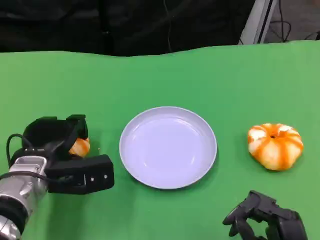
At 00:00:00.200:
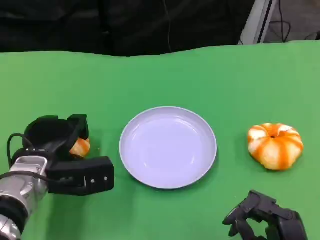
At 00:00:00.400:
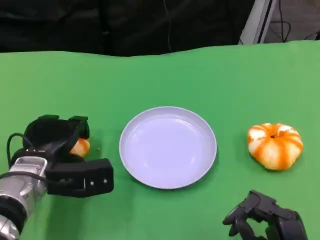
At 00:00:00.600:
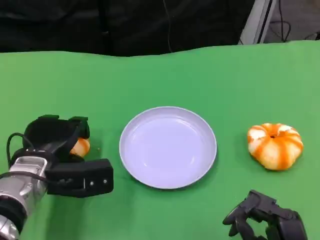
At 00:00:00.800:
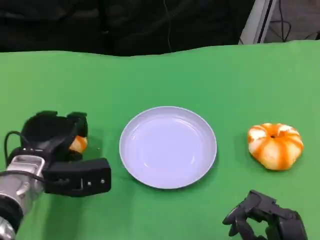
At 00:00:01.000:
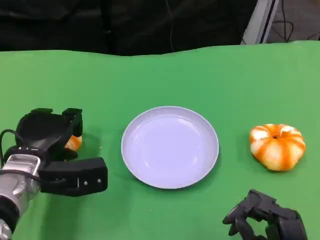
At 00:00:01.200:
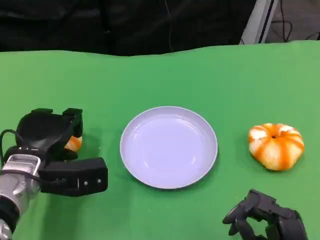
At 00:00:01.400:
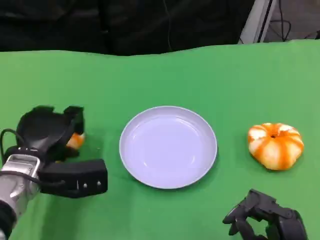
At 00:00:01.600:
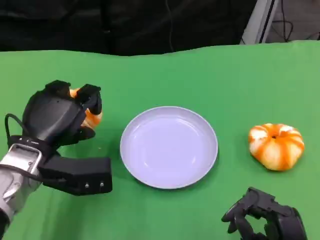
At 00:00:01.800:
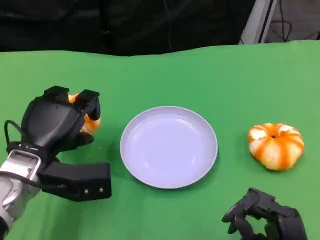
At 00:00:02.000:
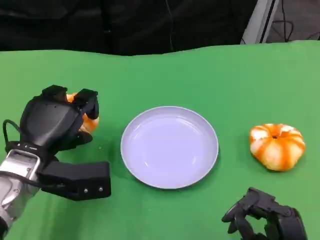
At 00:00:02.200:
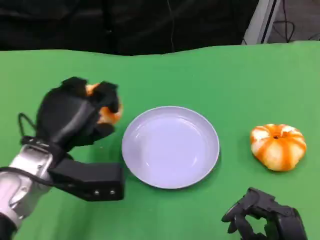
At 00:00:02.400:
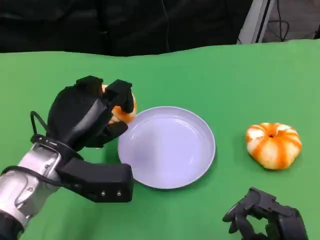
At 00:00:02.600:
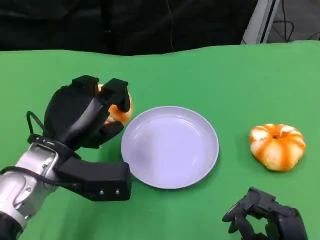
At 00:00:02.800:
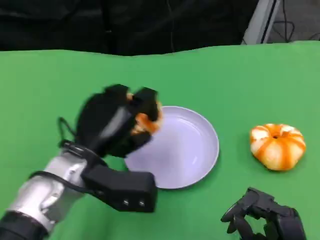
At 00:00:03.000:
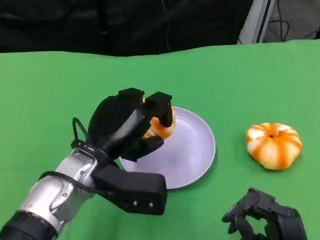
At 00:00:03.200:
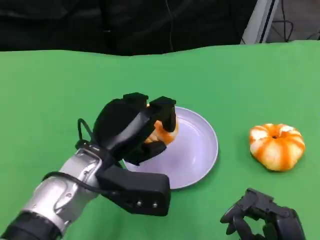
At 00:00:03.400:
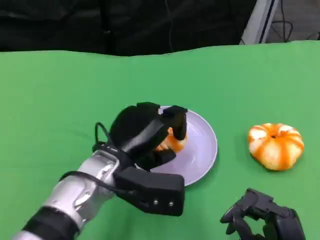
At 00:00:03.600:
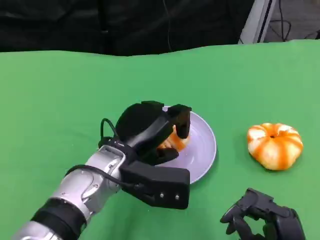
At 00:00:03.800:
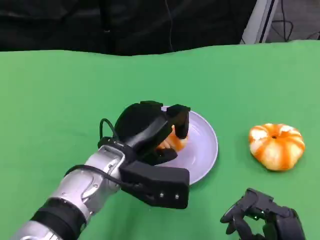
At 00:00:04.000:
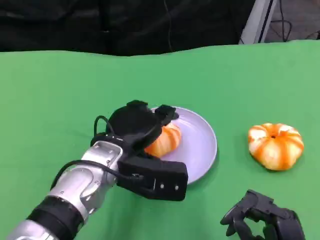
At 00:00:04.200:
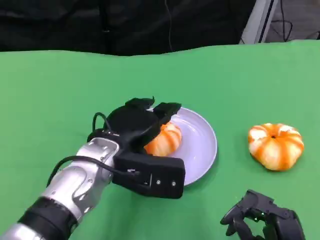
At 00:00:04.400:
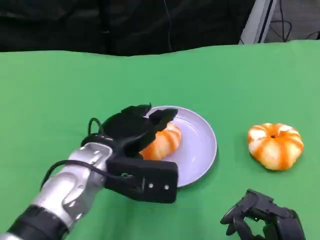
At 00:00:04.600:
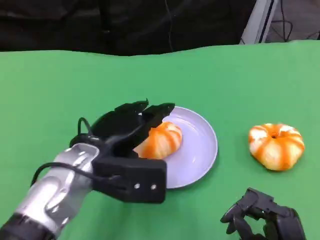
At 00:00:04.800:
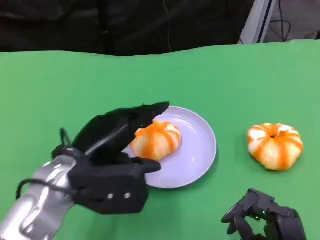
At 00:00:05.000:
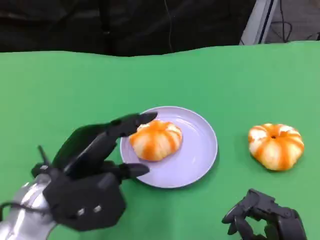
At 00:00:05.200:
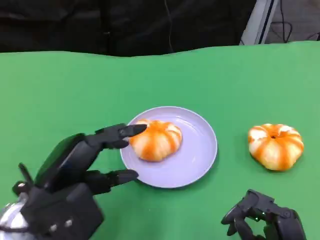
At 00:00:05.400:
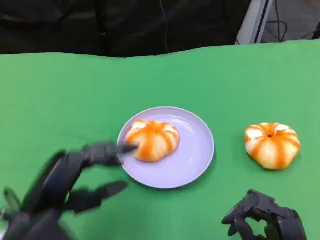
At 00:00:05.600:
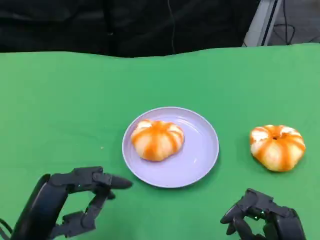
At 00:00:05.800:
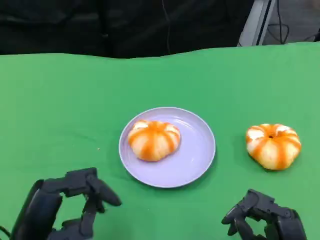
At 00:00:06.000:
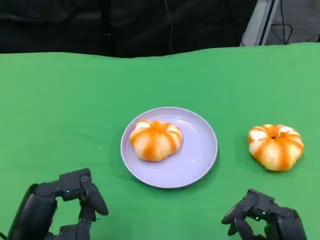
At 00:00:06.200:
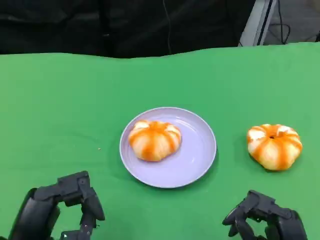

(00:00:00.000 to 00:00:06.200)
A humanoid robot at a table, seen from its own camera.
Task of the whole recording: Grasp the bread from the table and place it into the plate.
00:00:01.600 - 00:00:03.200: The left hand heads to the right, covering roughly 10 cm.
00:00:04.600 - 00:00:06.200: The left hand is displaced backward and to the left by about 15 cm.

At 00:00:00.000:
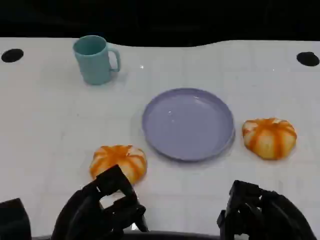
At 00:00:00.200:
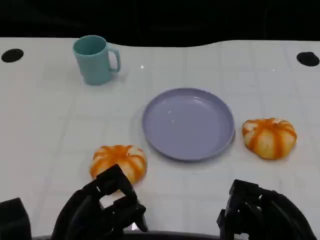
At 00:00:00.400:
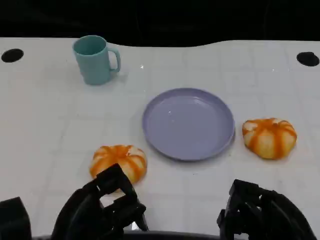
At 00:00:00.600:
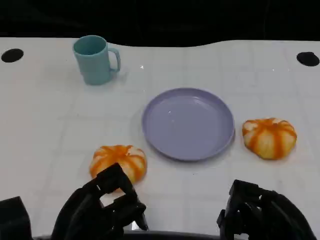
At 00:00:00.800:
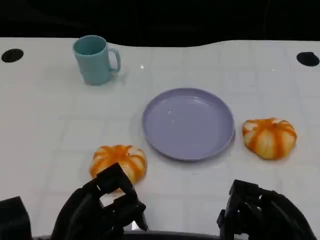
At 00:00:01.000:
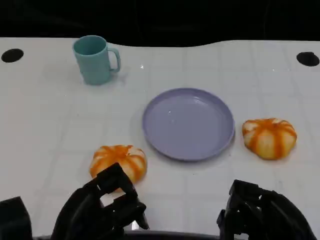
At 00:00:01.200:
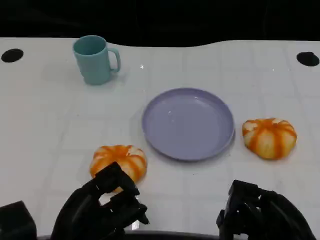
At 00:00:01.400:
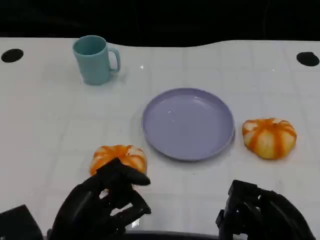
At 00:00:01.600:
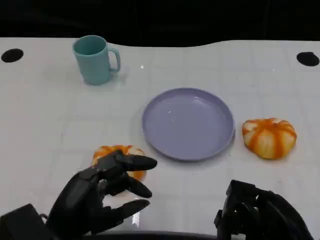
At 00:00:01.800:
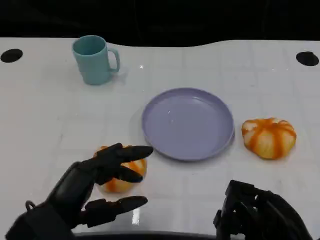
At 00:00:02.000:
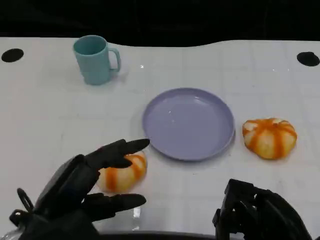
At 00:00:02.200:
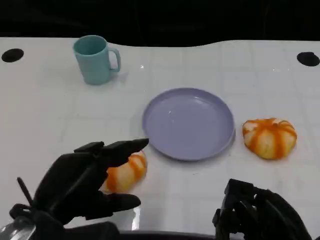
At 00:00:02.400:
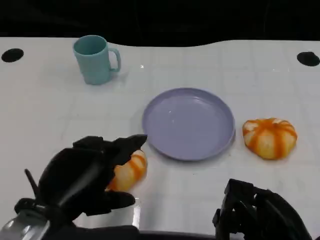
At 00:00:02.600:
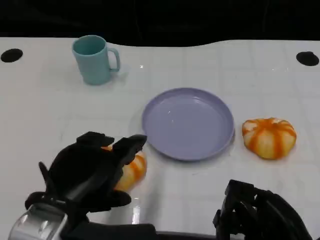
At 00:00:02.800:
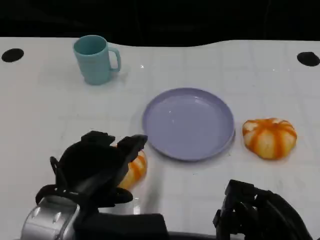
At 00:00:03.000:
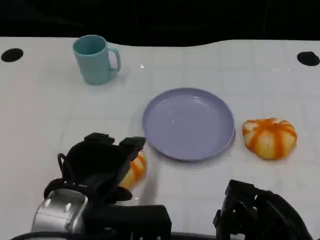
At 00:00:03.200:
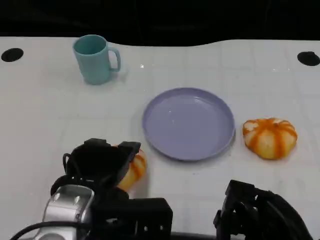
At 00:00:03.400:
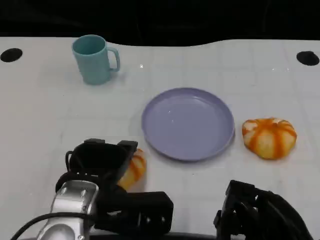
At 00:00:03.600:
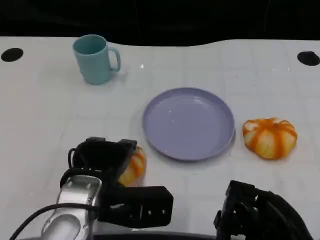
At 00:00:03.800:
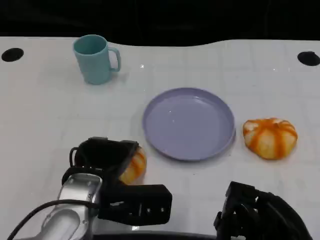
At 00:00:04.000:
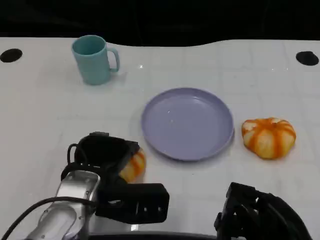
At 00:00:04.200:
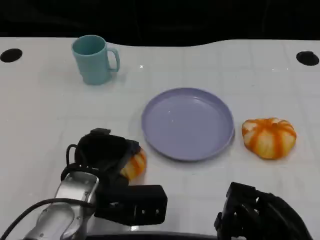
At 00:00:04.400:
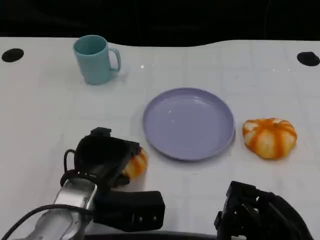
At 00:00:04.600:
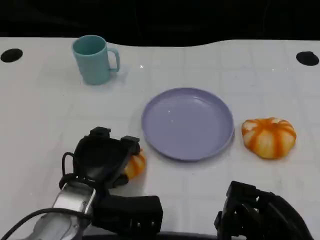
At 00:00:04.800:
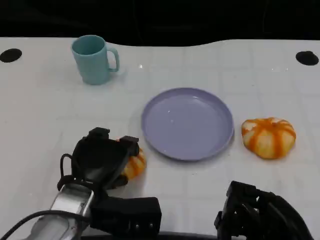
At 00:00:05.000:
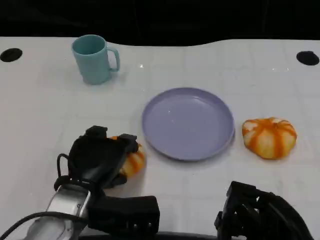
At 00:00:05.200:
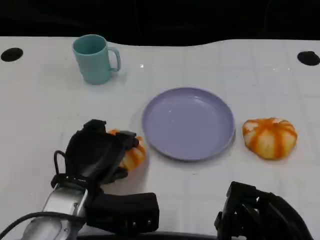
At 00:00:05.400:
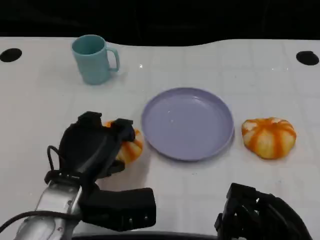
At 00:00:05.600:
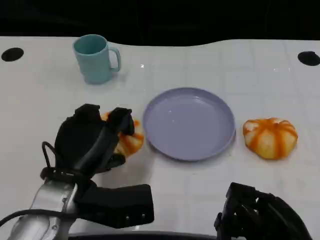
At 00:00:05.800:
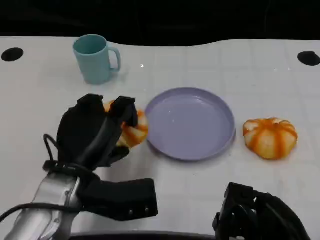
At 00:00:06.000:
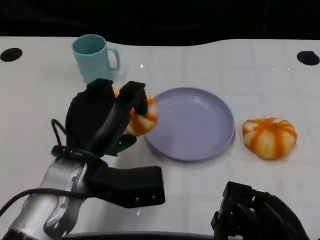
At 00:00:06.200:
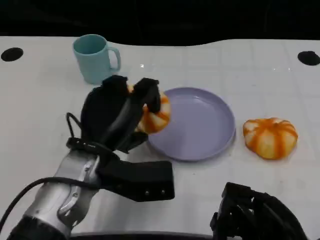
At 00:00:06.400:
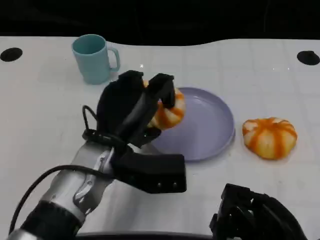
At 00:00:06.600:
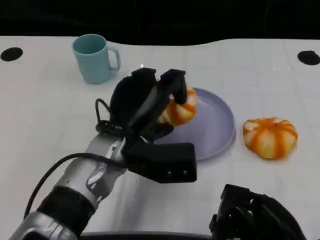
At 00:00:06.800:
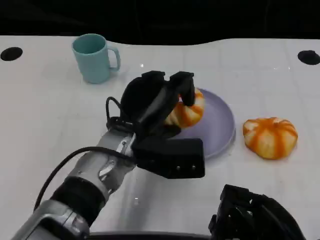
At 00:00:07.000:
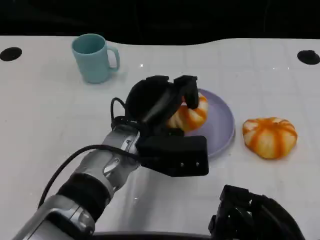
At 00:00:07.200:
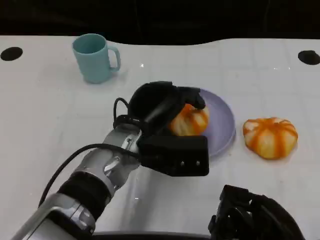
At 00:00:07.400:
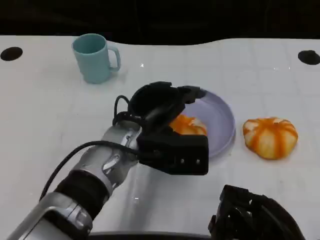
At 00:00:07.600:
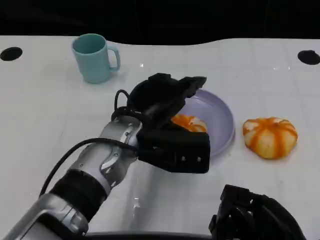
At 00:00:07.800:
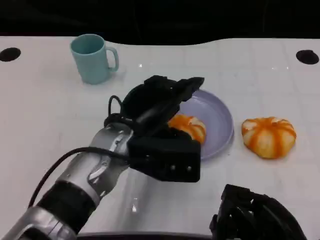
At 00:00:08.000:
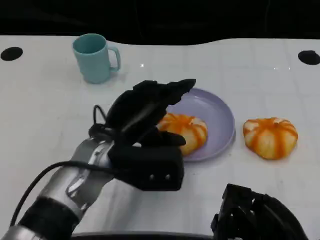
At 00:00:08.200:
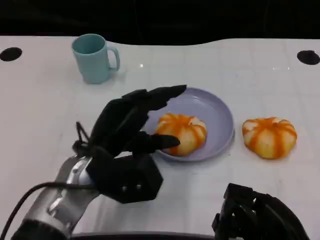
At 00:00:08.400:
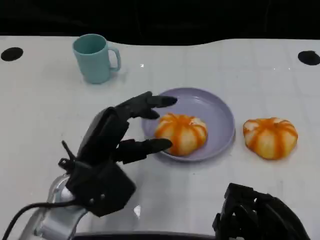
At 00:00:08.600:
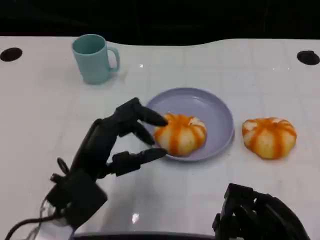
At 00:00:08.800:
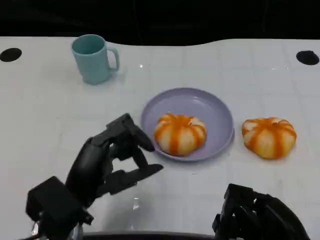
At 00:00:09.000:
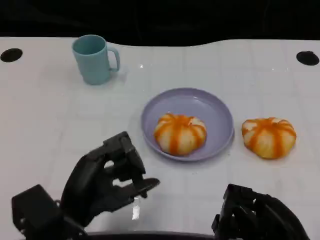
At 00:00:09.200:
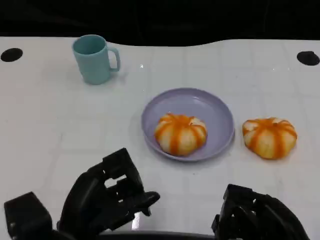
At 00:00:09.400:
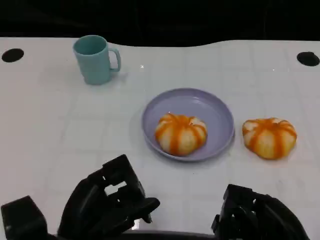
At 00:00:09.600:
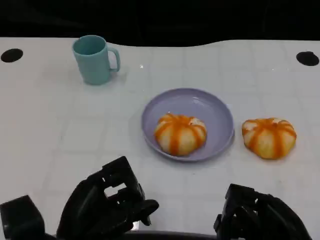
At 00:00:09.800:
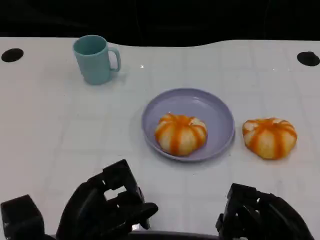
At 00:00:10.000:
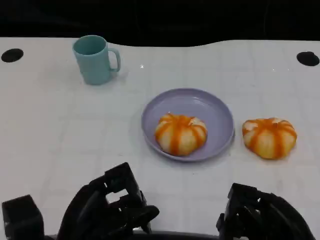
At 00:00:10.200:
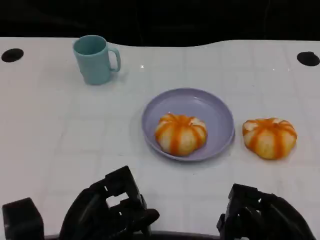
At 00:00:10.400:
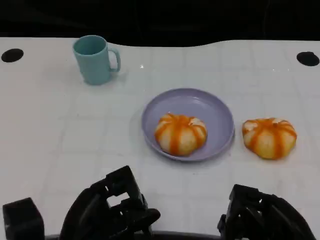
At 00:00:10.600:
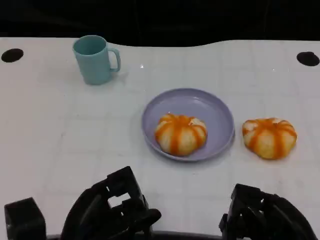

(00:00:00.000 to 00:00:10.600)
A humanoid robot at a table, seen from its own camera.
Task of the whole recording: Grasp the bread from the table and place it into the plate.
00:00:01.600 - 00:00:03.000: The left hand shifts by about 5 cm.
00:00:03.000 - 00:00:04.600: The left hand travels downward by some 5 cm.
00:00:04.600 - 00:00:06.000: The left hand moves upward, roughly 5 cm.
00:00:06.000 - 00:00:07.600: The left hand moves to the right, roughly 5 cm.
00:00:07.600 - 00:00:09.000: The left hand shifts approximately 15 cm backward, to the left and downward.
00:00:09.000 - 00:00:10.600: The hands move only a little.

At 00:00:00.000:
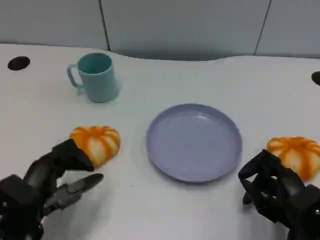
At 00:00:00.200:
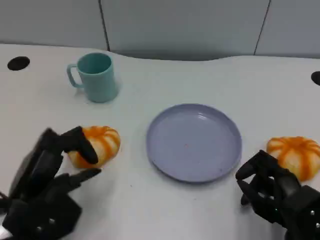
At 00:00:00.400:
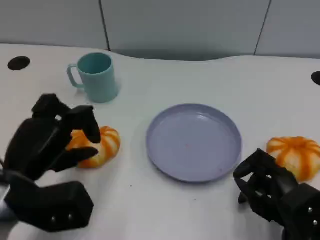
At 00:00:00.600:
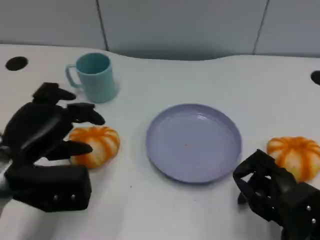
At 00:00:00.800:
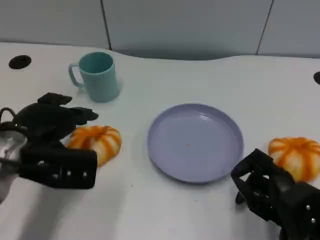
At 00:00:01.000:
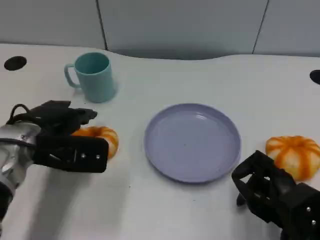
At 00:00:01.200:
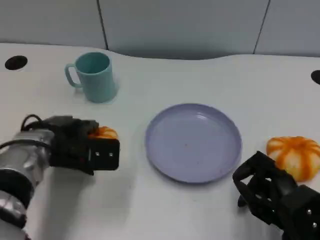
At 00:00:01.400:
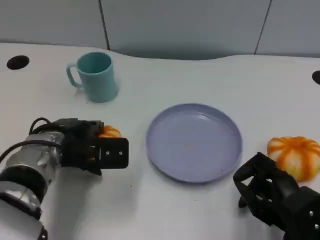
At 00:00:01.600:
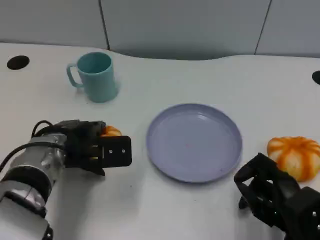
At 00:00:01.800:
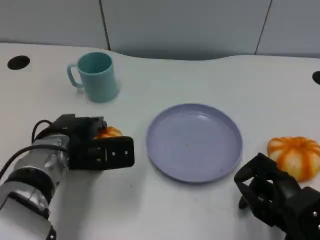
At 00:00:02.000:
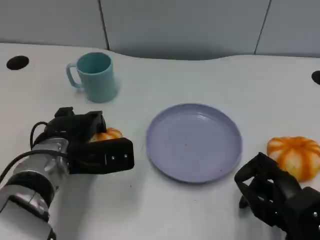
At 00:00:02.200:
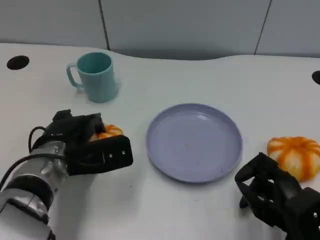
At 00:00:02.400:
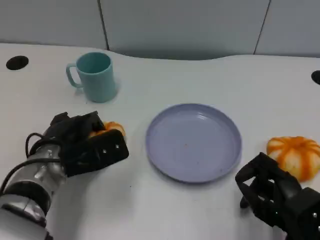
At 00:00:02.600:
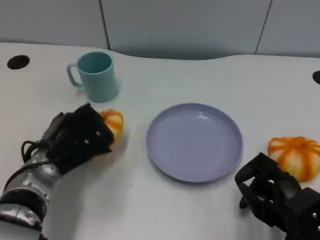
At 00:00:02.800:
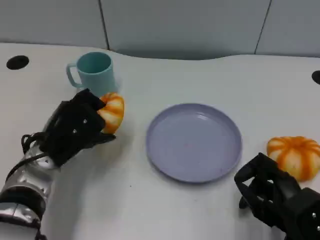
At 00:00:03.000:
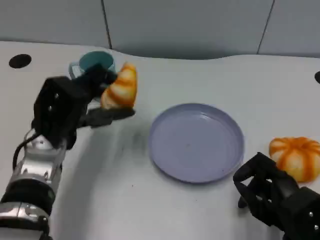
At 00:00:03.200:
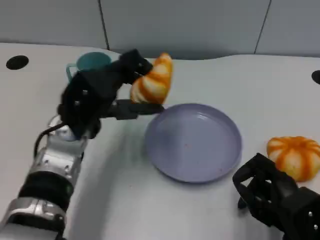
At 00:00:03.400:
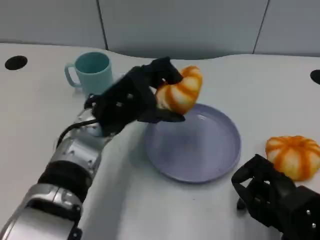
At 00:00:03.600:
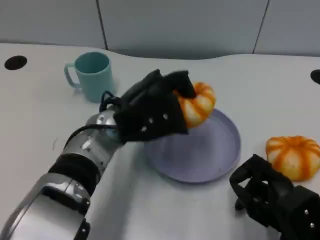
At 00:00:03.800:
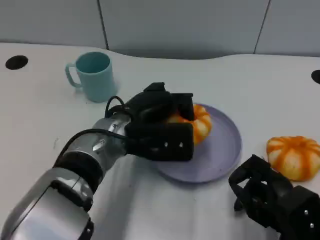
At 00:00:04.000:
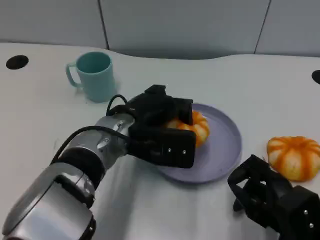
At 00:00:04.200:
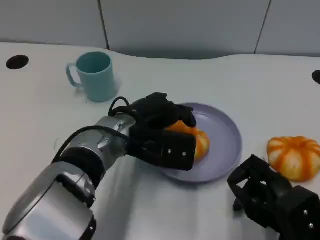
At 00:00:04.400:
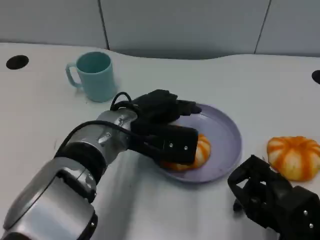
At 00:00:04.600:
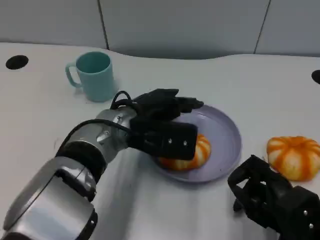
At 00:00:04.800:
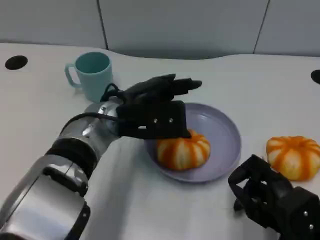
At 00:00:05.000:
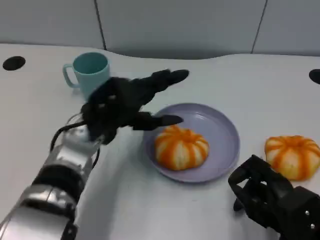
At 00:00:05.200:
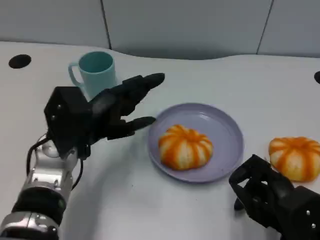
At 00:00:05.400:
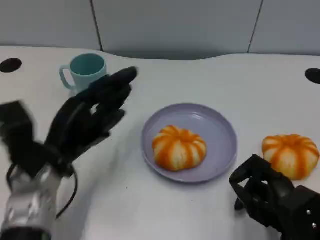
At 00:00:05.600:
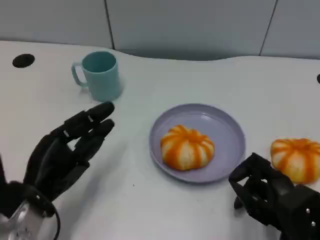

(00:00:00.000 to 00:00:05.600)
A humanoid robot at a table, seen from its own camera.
Task of the whole recording: Grasp the bread from the table and place it into the plate.
00:00:00.000 - 00:00:01.400: The left hand travels forward by roughly 10 cm.
00:00:02.800 - 00:00:04.200: The left hand heads to the right, covering about 10 cm.
00:00:04.200 - 00:00:05.600: The left hand moves to the left and backward, roughly 15 cm.
